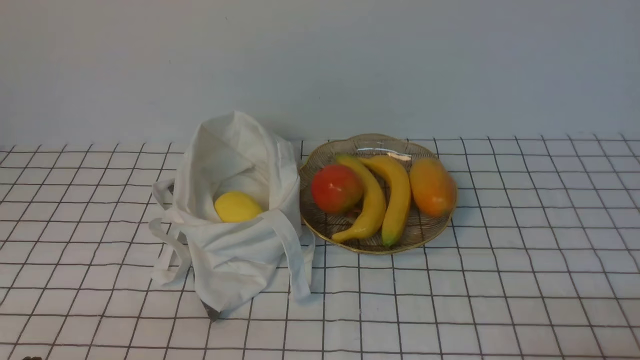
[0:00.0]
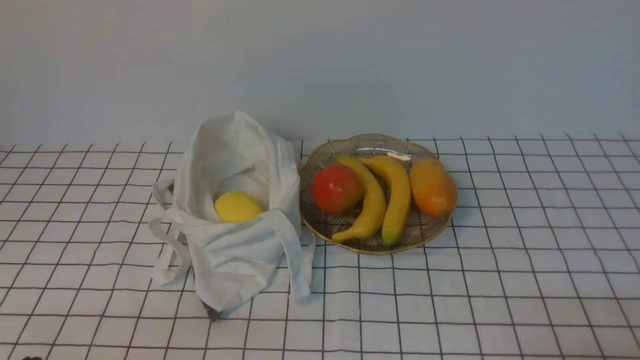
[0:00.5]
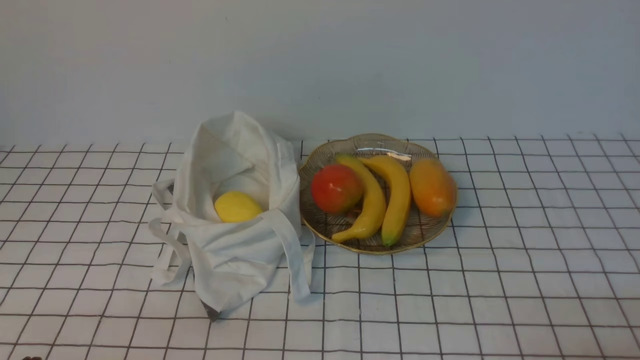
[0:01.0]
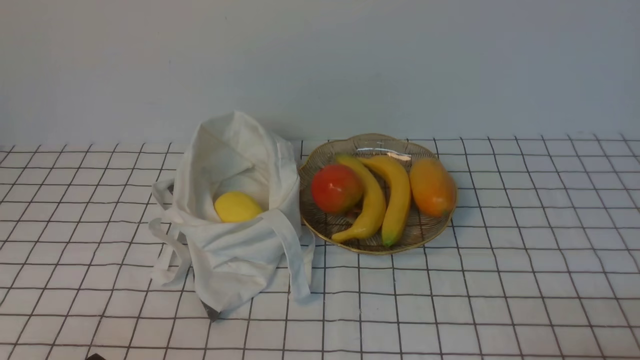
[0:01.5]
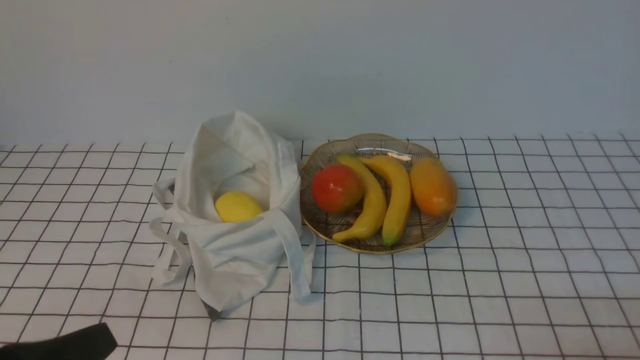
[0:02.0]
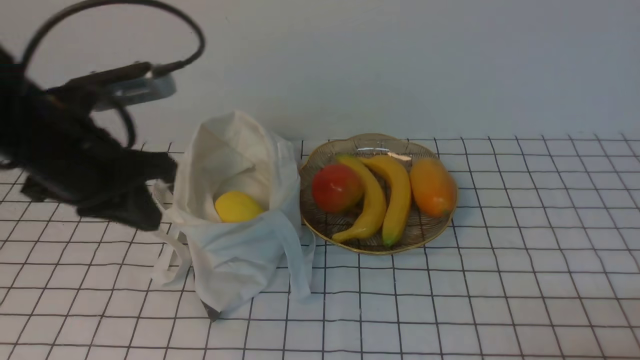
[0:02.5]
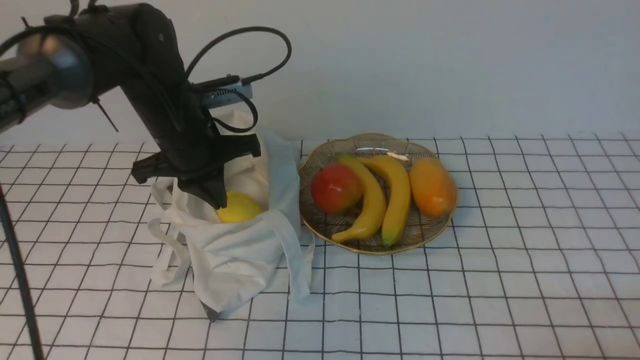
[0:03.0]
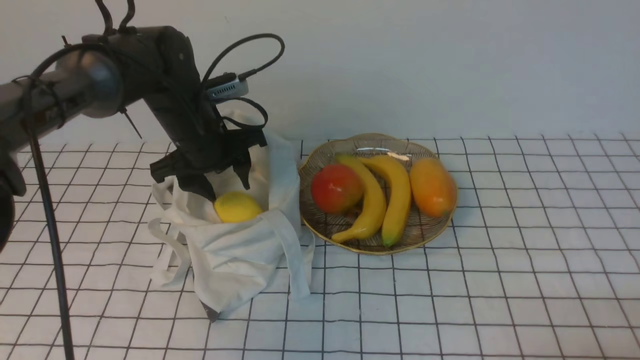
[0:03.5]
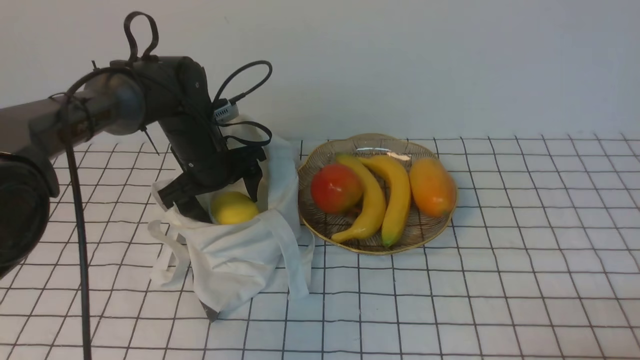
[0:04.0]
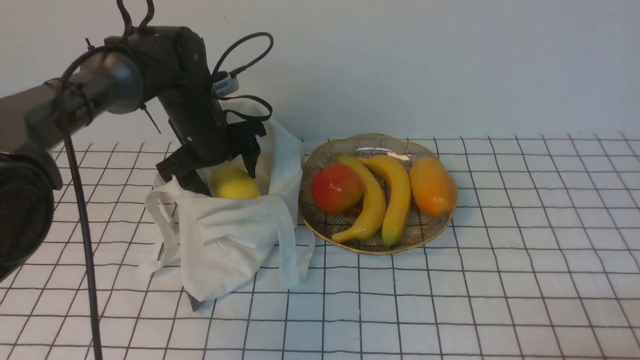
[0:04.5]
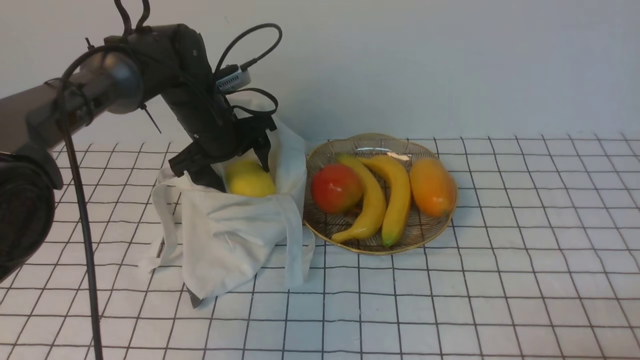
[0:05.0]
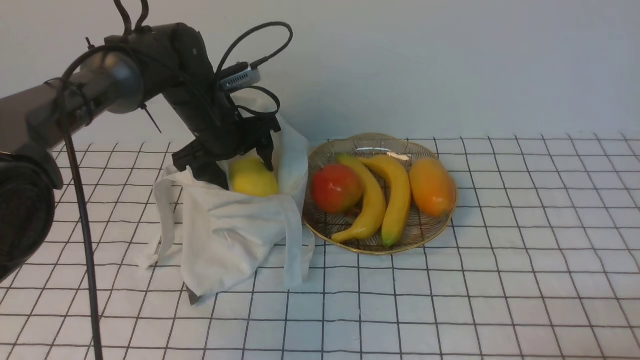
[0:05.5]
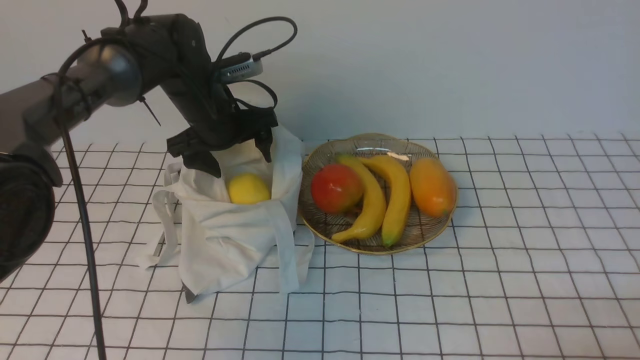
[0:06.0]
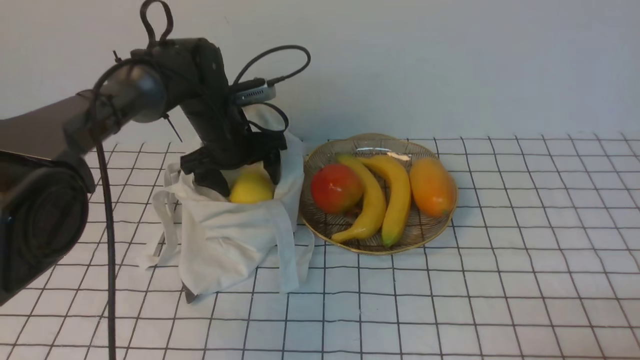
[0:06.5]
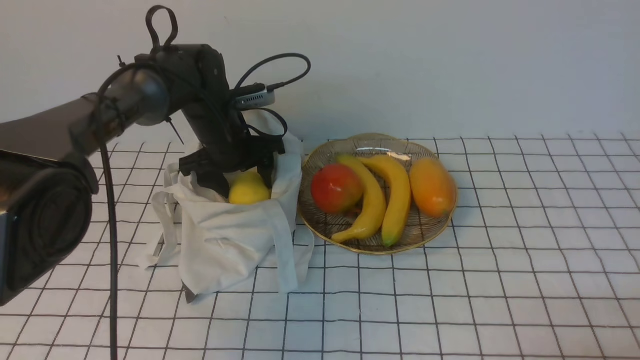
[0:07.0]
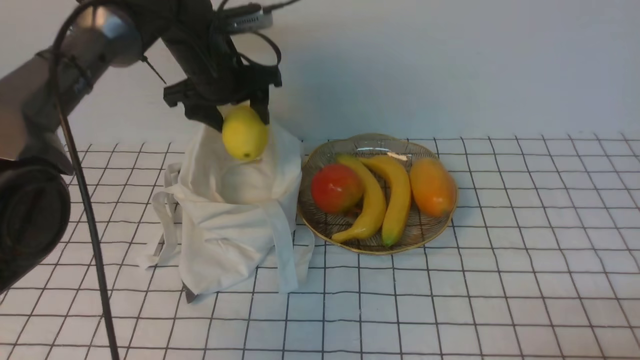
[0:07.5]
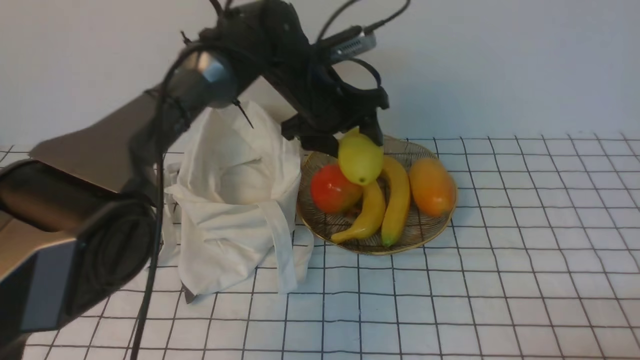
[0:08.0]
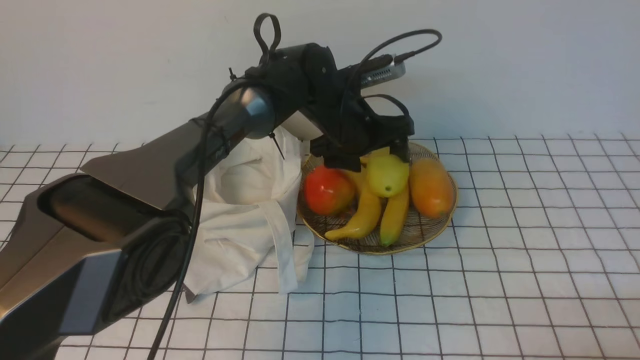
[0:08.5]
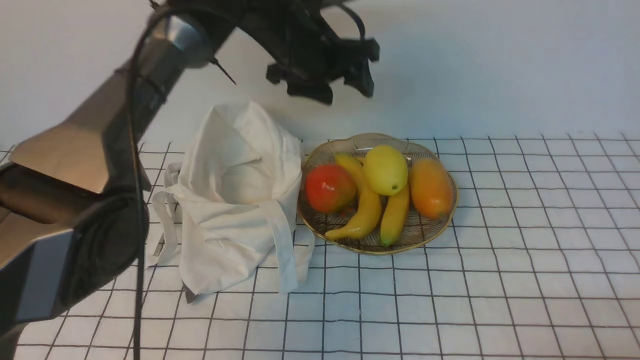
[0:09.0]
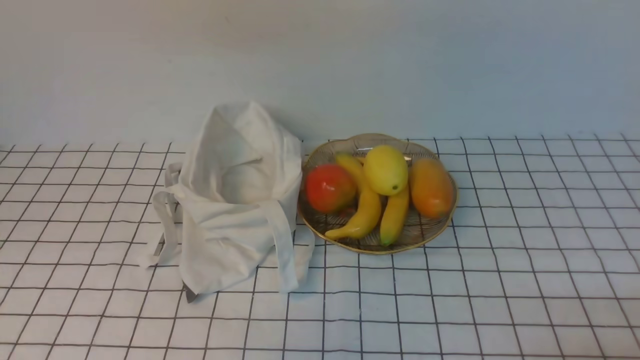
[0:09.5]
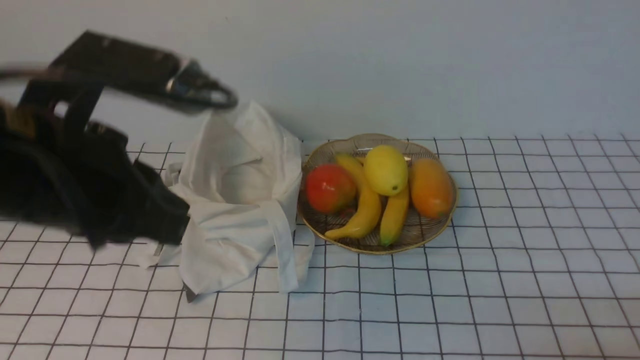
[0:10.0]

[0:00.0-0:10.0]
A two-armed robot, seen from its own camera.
Step, 0:00.0 to 0:07.0: use the left arm to grab a lemon from the bag.
Step, 0:07.5 to 0:08.5: use the left arm to put the lemon into the empty plate on the right.
0:02.0 to 0:04.0: The left gripper moves forward, approximately 40 cm, and opens up.
0:04.0 to 0:06.0: The grippers move only a little.
0:06.0 to 0:08.0: The left gripper travels to the right by roughly 10 cm.
0:08.0 to 0:10.0: The left gripper goes roughly 30 cm backward, upward and to the left, and closes.

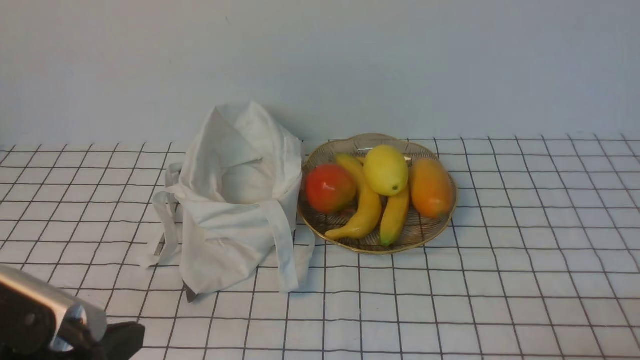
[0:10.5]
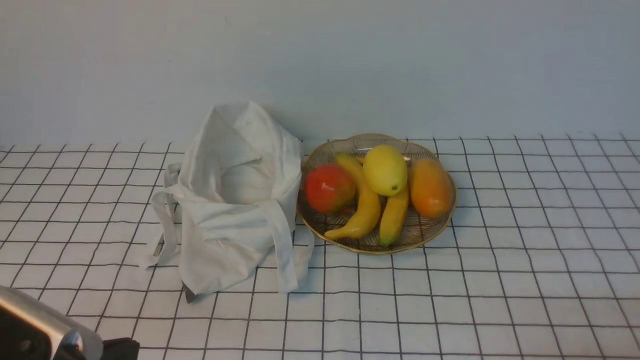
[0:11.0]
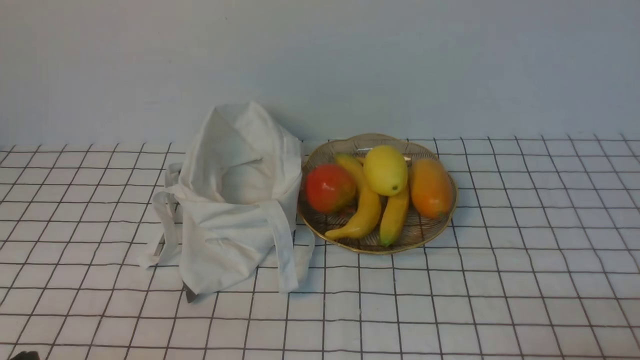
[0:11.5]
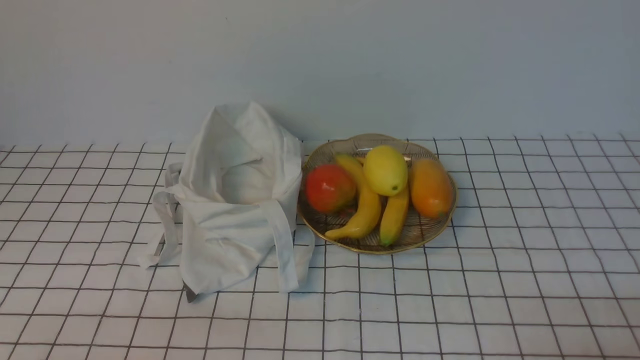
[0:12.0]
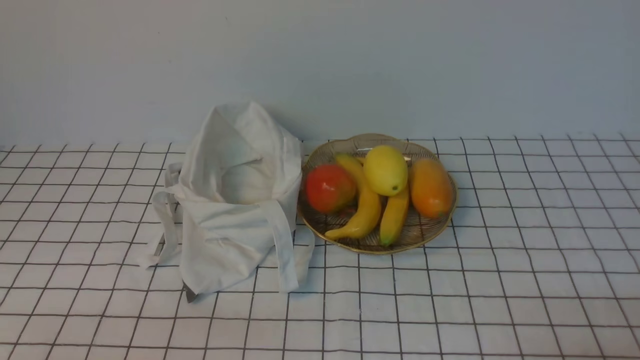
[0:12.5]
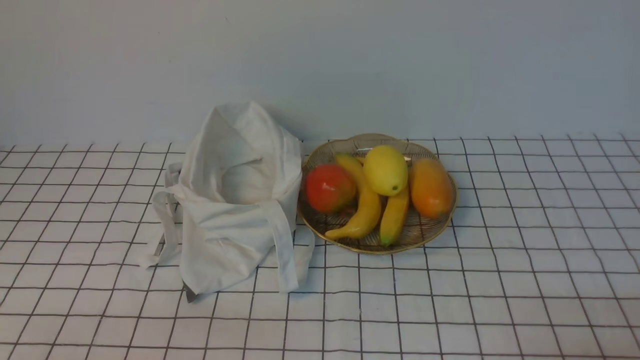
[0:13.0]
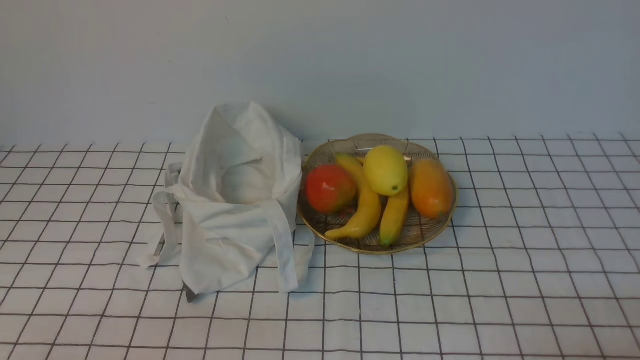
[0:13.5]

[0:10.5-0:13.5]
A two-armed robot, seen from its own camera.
0:10.5 to 0:12.0: The left gripper moves downward, backward and to the left, about 10 cm.
0:12.0 to 0:13.5: Both grippers stay about where they are.
